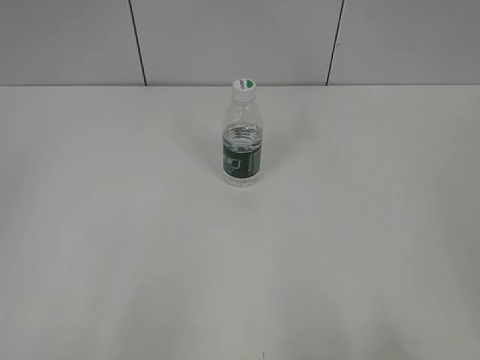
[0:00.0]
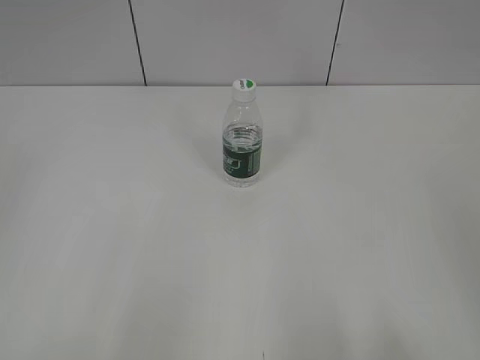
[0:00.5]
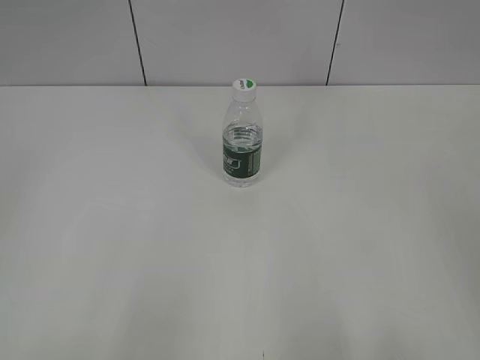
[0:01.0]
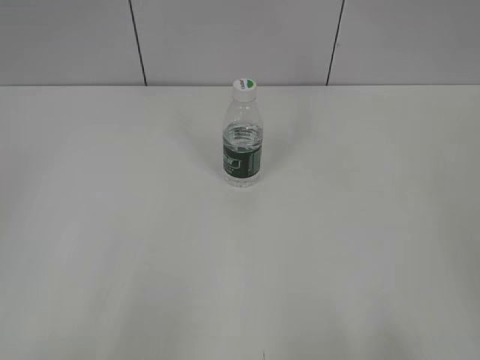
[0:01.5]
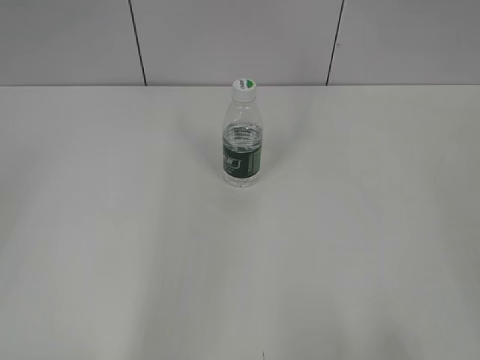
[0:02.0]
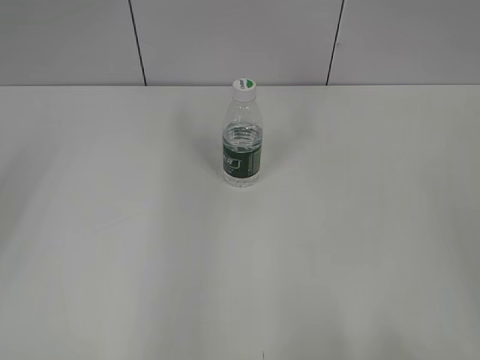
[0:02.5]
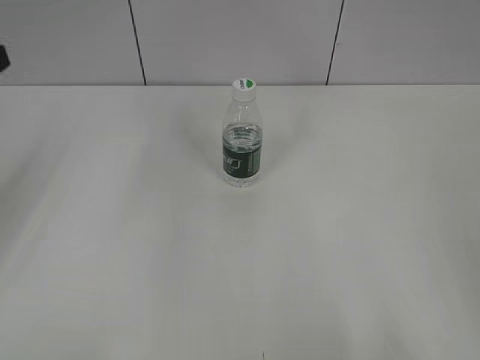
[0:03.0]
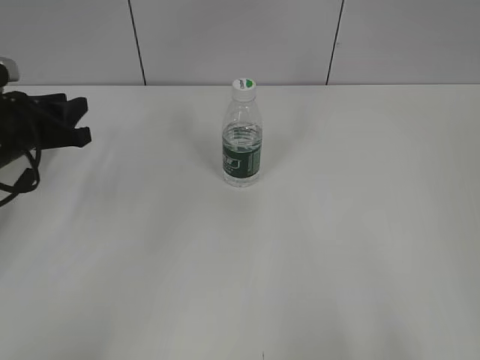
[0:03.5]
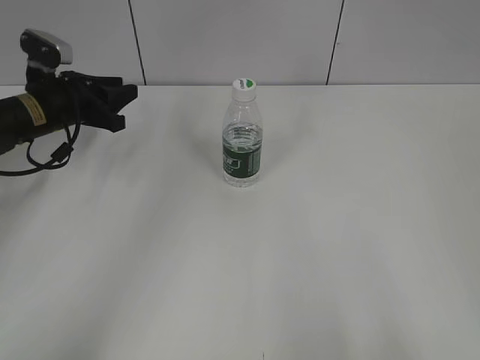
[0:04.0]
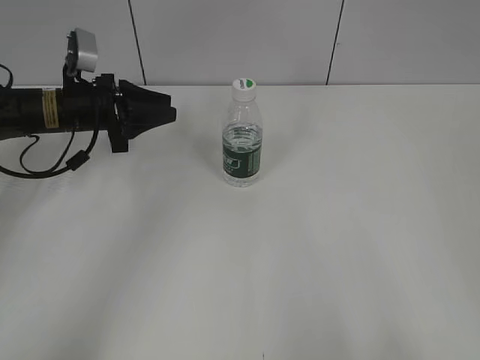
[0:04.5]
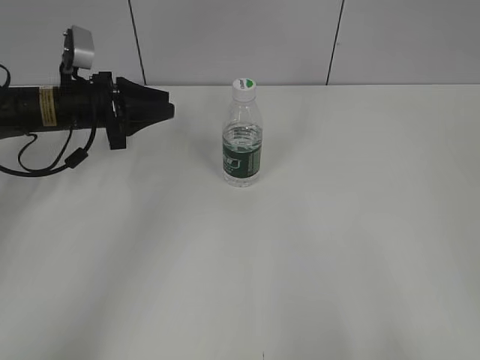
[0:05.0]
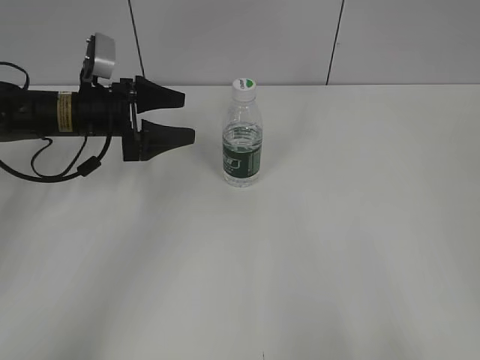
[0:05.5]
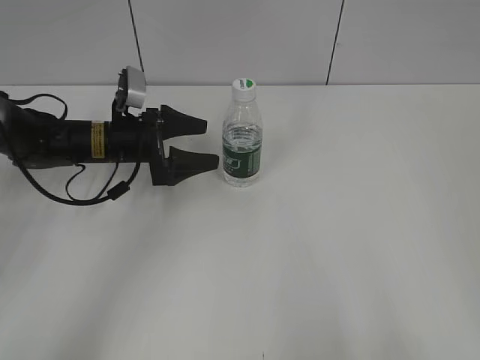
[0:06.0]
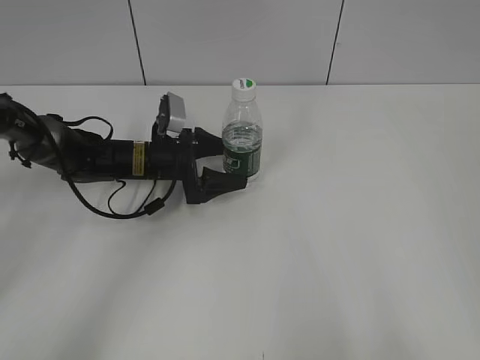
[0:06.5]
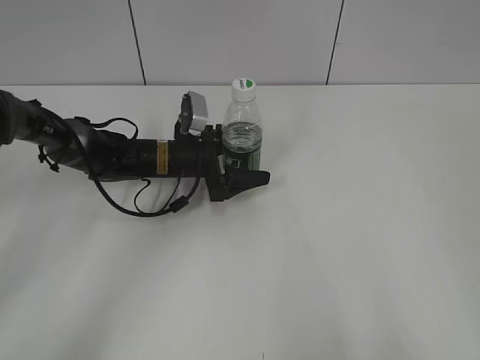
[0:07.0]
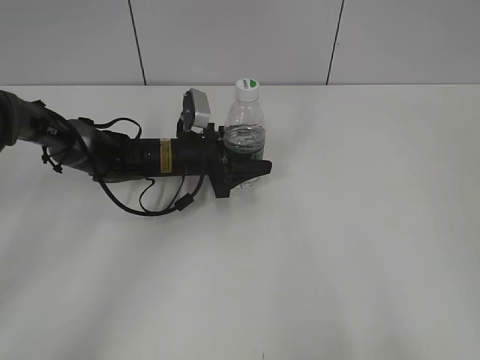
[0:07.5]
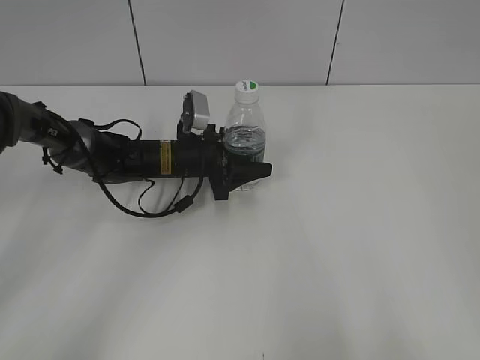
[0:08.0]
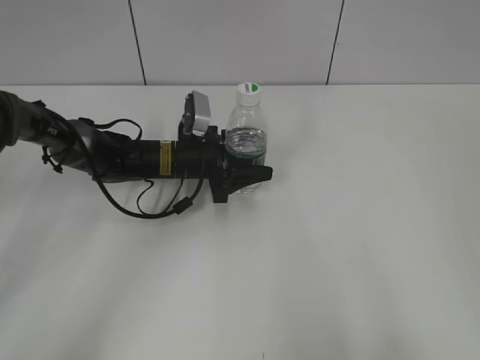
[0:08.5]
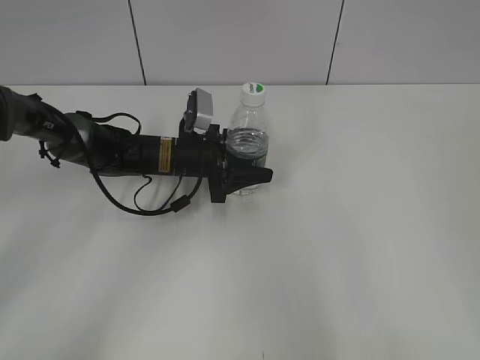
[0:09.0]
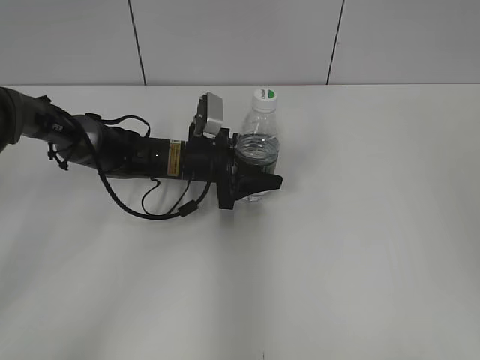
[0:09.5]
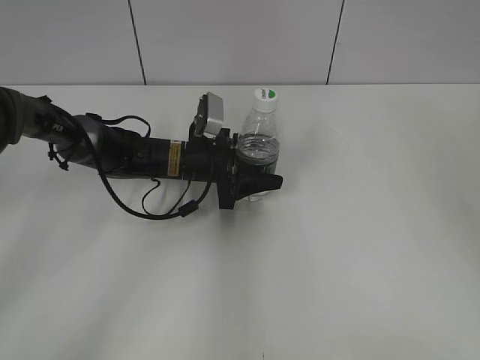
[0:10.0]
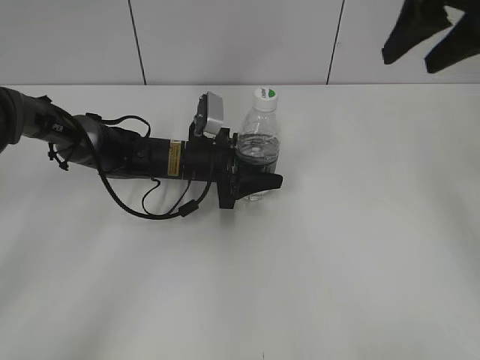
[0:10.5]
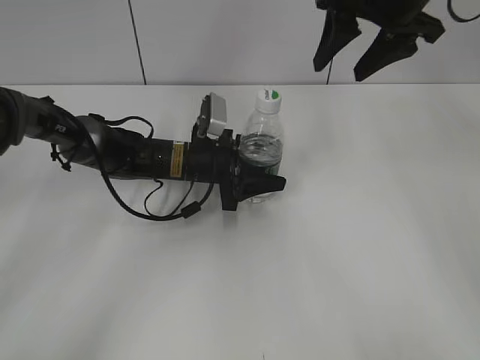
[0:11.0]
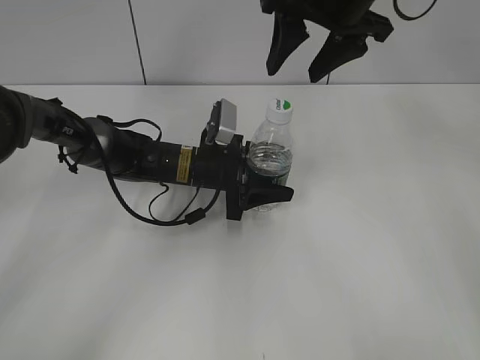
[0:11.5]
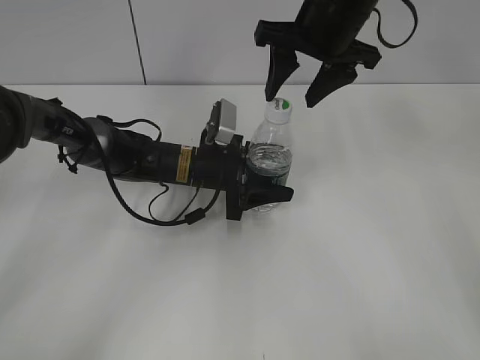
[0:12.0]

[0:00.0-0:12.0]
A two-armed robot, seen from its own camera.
Step, 0:00.0 to 0:11.0: Grasp the bottle and move it to the center of the table with the left gripper.
0:02.0 to 0:04.0: The left gripper goes some 40 cm forward and downward.
0:04.0 to 0:06.0: The left gripper moves to the right, about 10 cm, and opens its fingers.
0:06.0 to 0:08.0: The left gripper goes some 10 cm to the right, and closes.
0:08.0 to 0:10.0: The right gripper is displaced forward by about 25 cm.
0:10.0 to 0:12.0: The right gripper moves to the left and forward, about 25 cm.

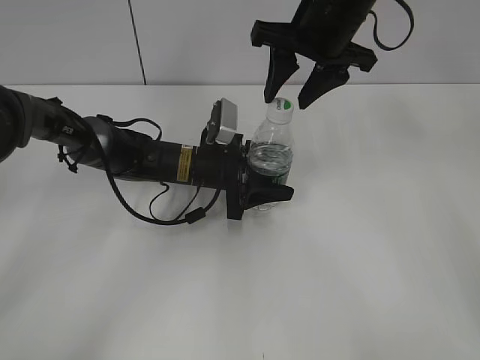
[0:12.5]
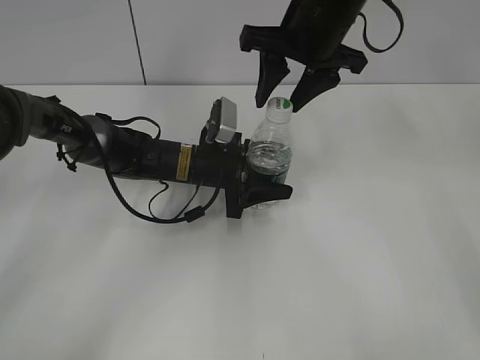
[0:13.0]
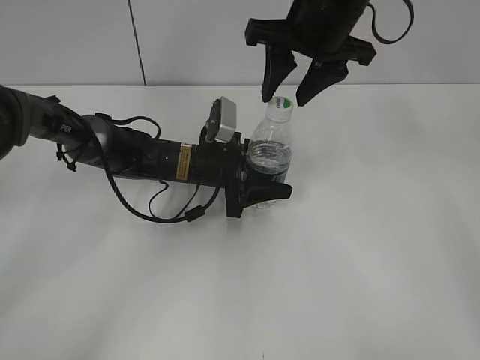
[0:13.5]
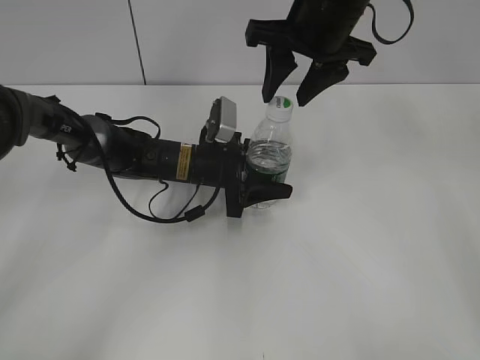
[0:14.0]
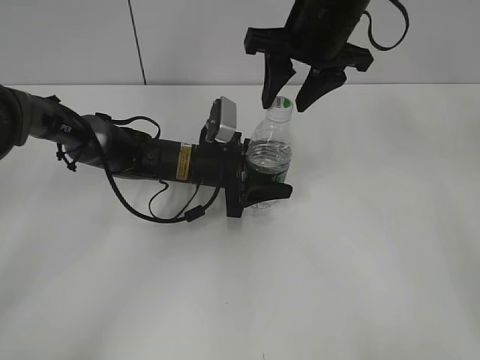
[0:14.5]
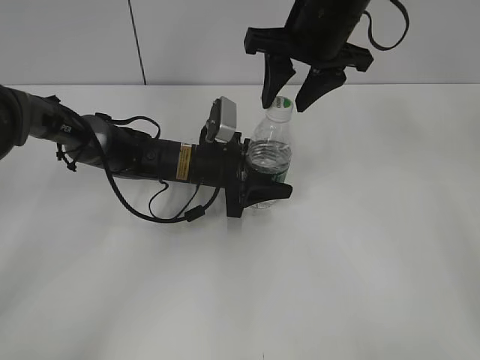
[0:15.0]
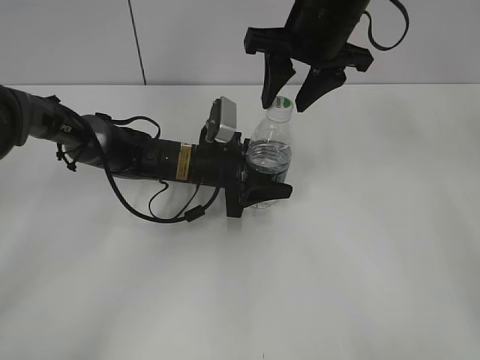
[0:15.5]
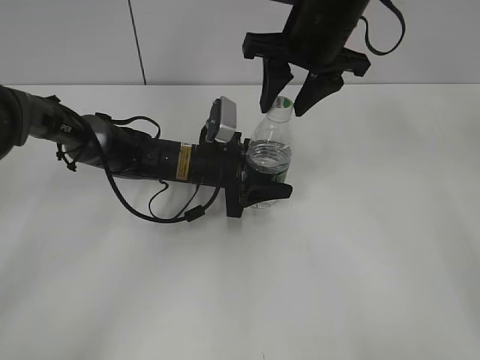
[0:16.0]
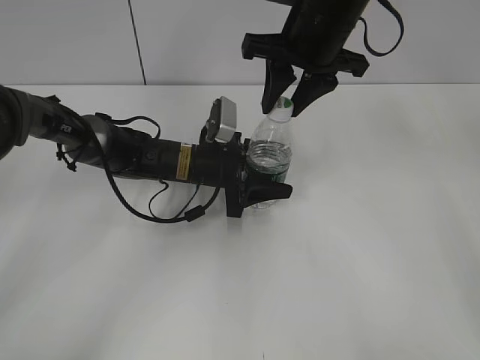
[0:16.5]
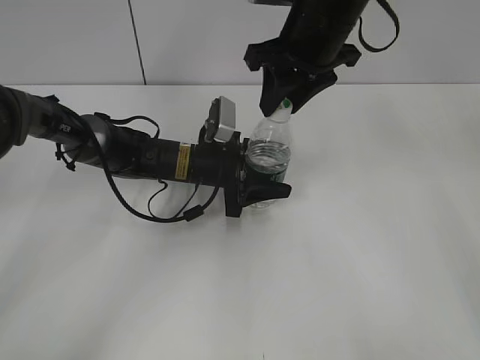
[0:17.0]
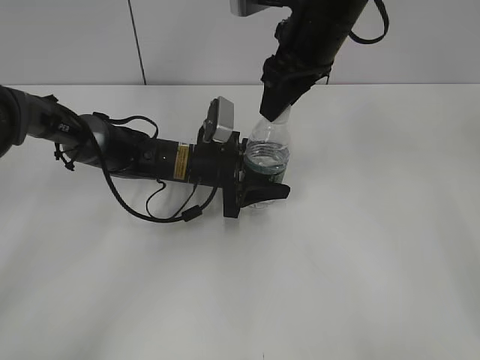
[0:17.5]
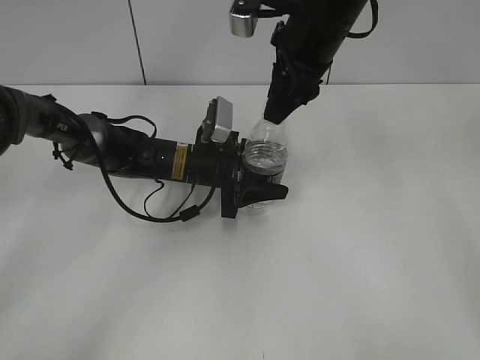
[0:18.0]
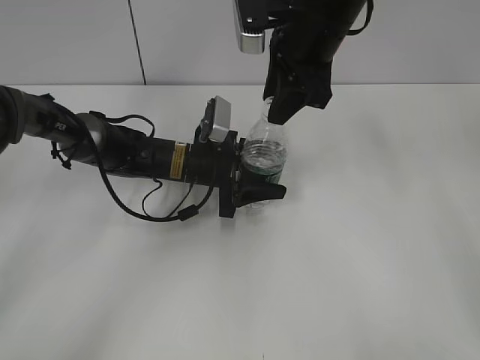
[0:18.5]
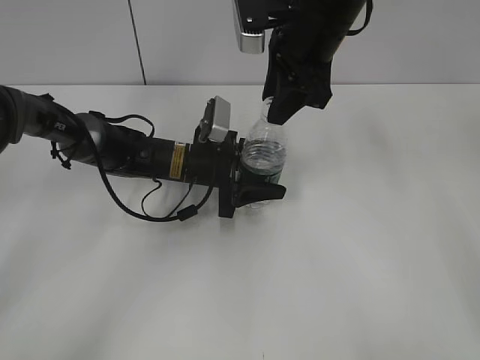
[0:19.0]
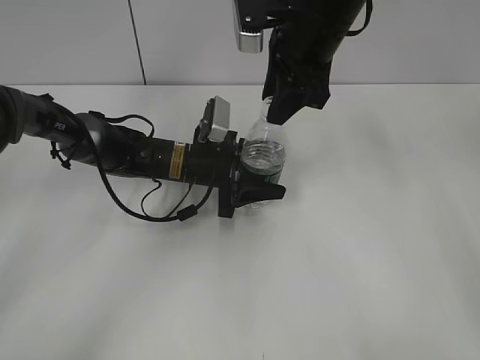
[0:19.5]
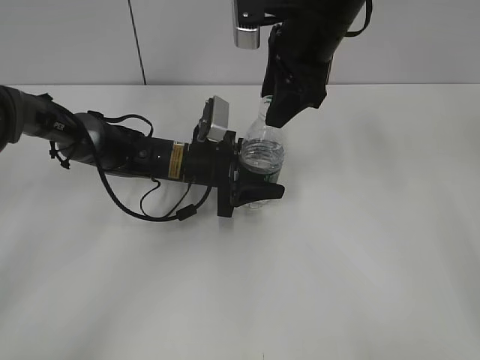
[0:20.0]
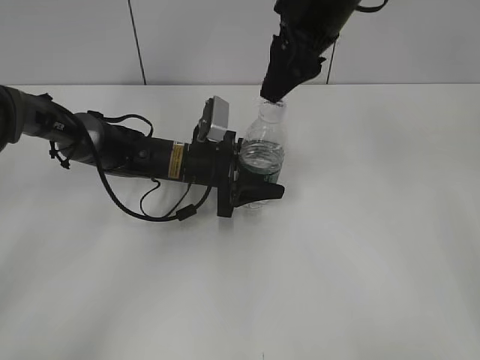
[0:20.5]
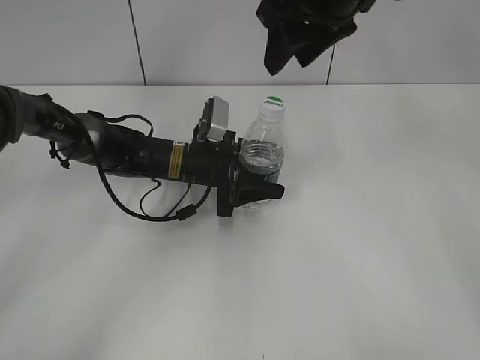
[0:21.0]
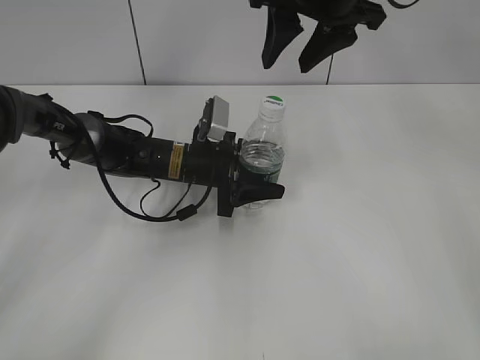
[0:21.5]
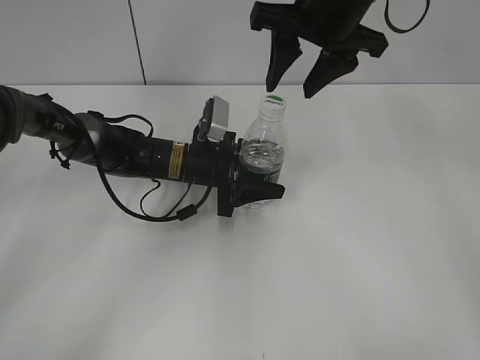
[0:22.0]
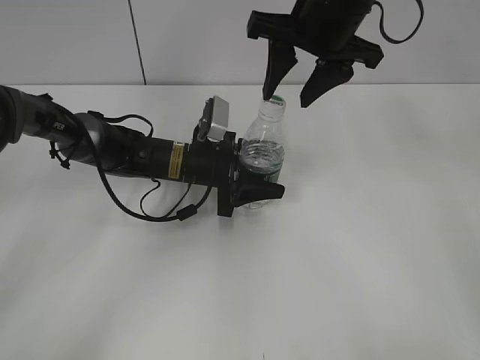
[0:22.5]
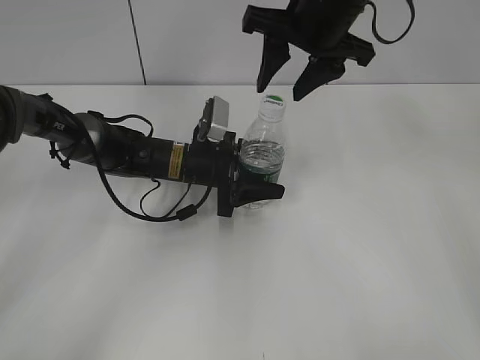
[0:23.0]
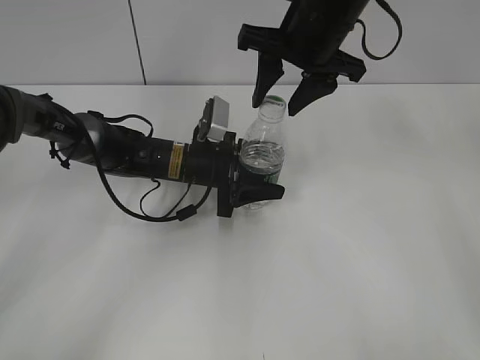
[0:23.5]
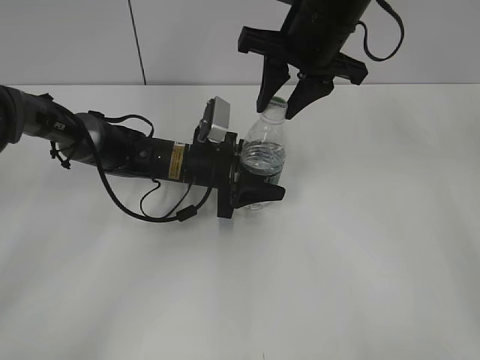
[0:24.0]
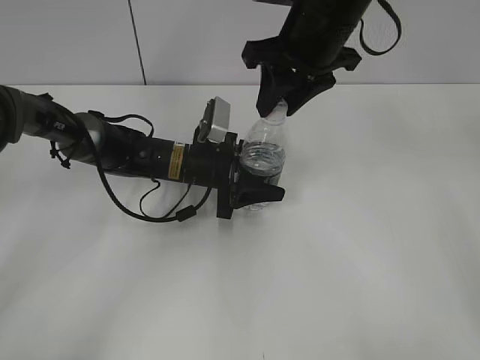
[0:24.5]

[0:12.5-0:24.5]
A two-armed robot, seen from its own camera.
0:12.5 to 0:14.5: The grippers stay close to where they were, moving slightly.
0:14.5 to 0:16.5: The right gripper closes up.
0:18.5 to 0:20.5: The right gripper opens its fingers.
0:22.5 to 0:24.5: The right gripper closes up.

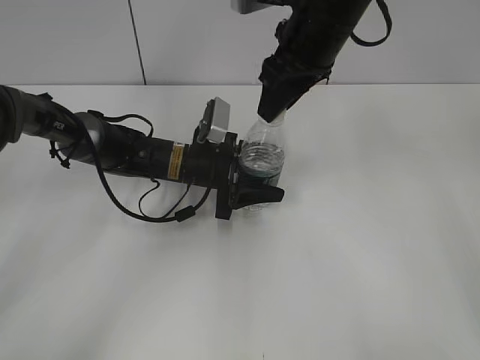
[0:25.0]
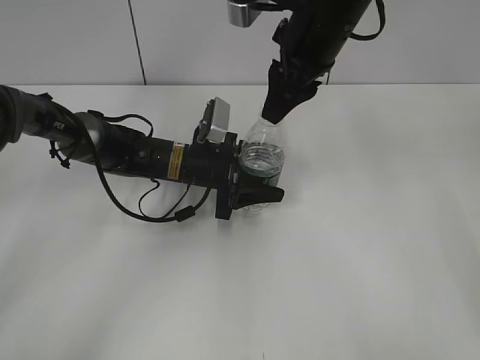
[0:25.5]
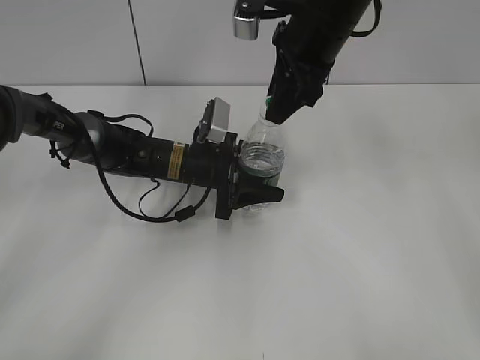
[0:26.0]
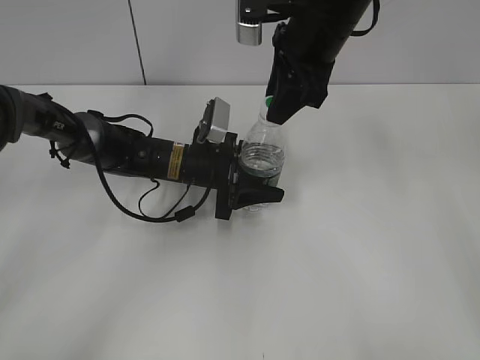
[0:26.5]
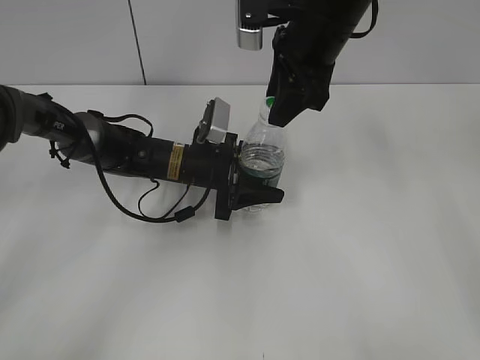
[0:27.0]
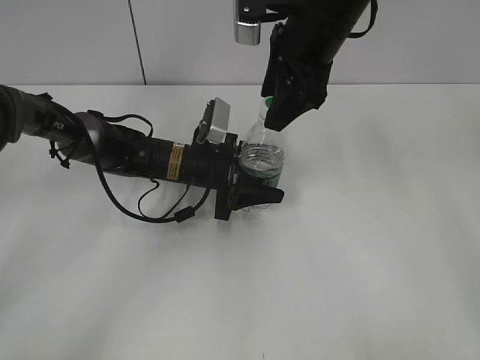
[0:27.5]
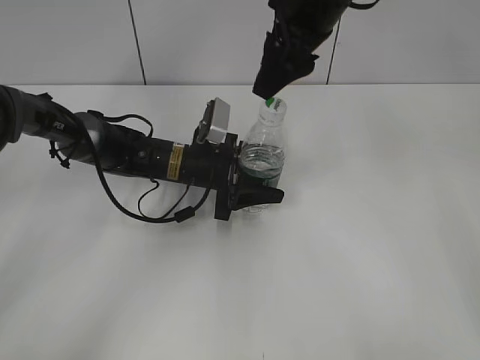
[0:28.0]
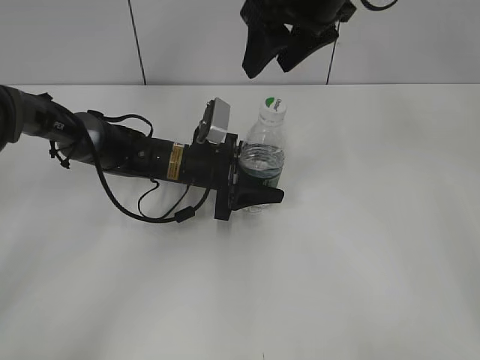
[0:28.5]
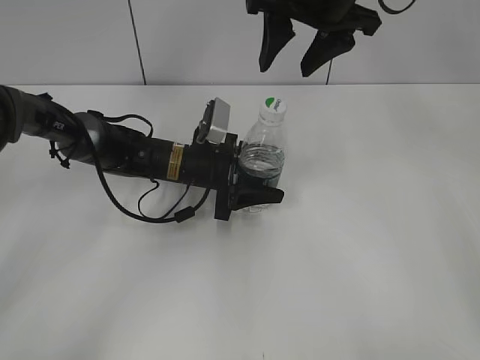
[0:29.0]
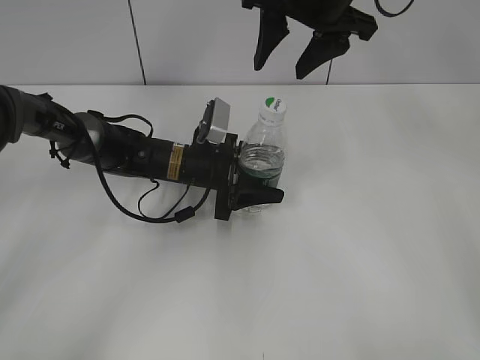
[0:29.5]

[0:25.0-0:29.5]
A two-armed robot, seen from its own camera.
0:27.0 to 0:29.5: The right gripper opens its fingers.
